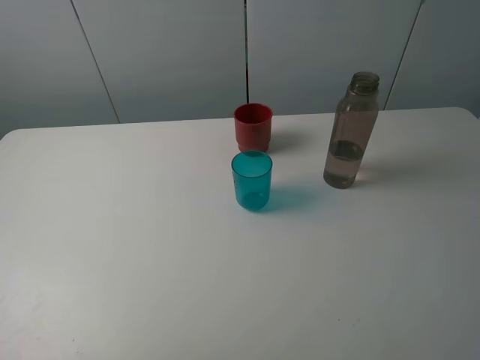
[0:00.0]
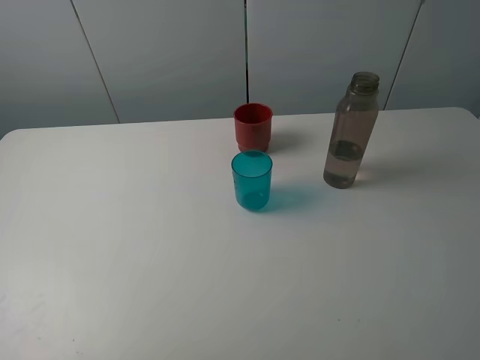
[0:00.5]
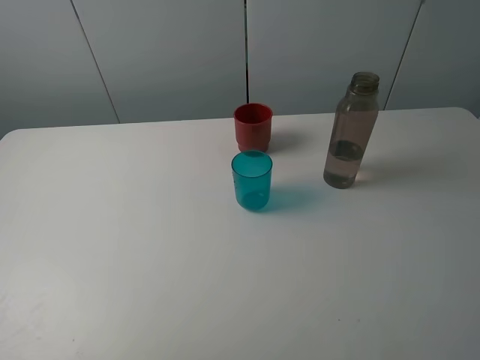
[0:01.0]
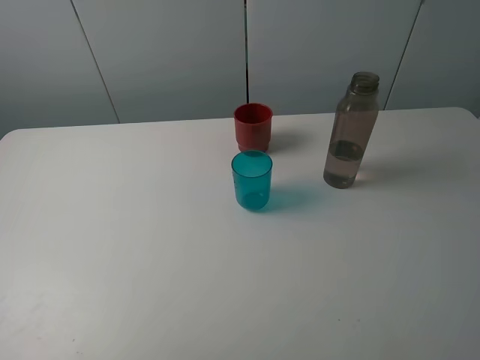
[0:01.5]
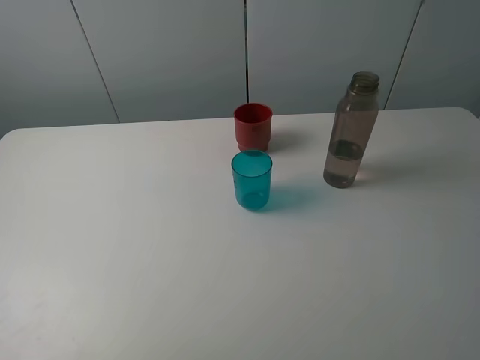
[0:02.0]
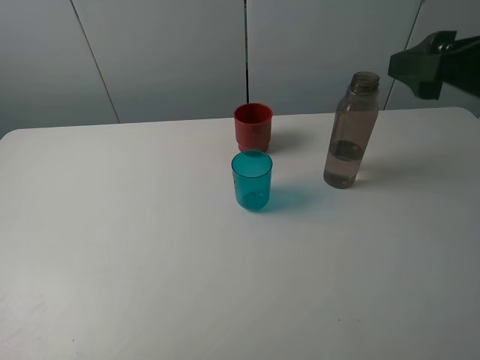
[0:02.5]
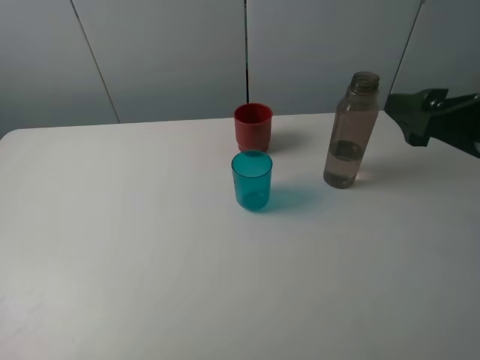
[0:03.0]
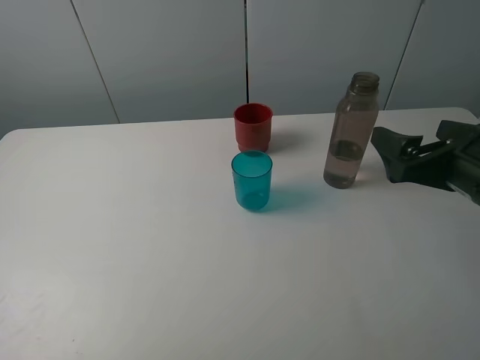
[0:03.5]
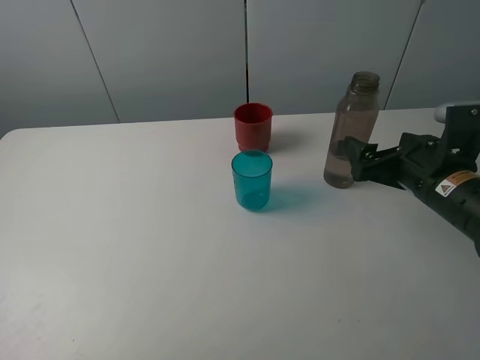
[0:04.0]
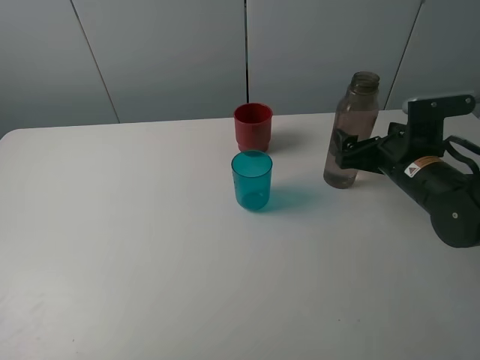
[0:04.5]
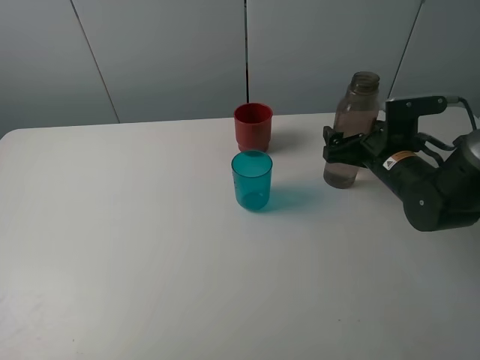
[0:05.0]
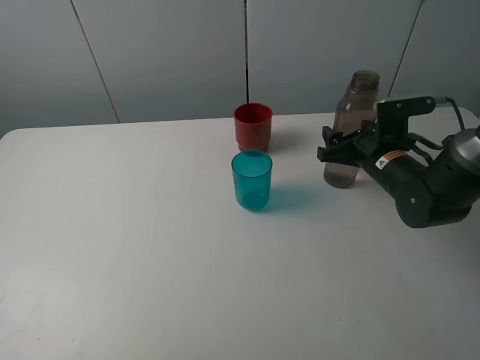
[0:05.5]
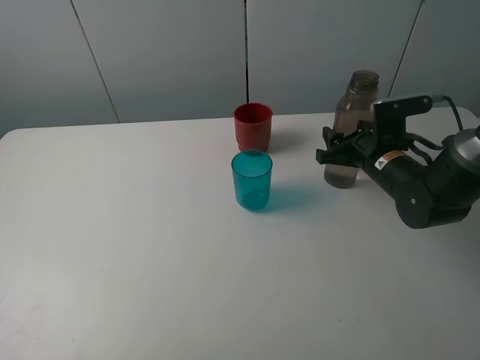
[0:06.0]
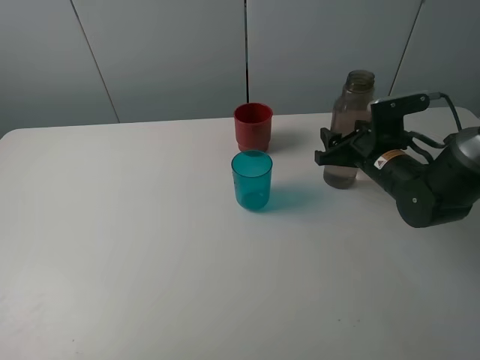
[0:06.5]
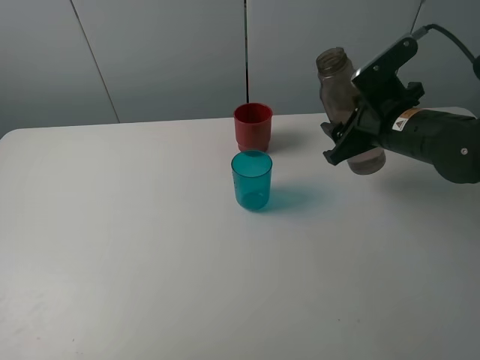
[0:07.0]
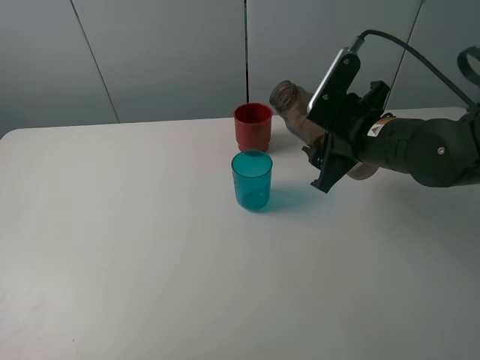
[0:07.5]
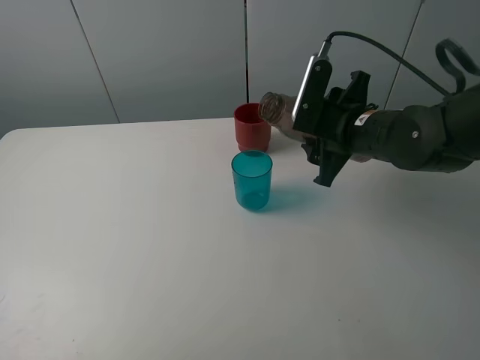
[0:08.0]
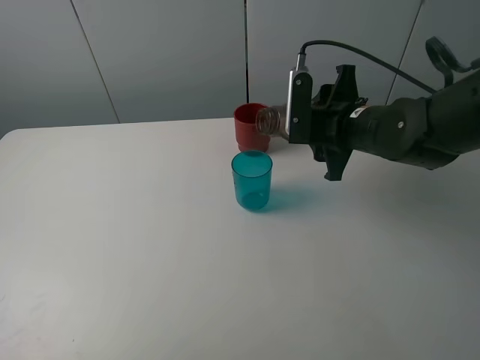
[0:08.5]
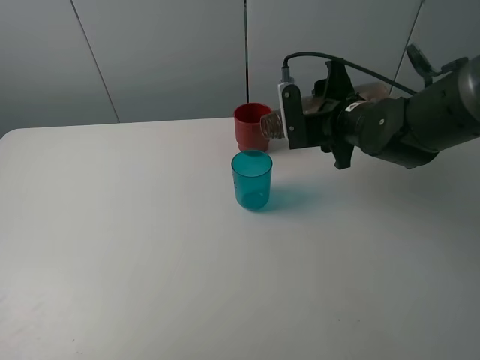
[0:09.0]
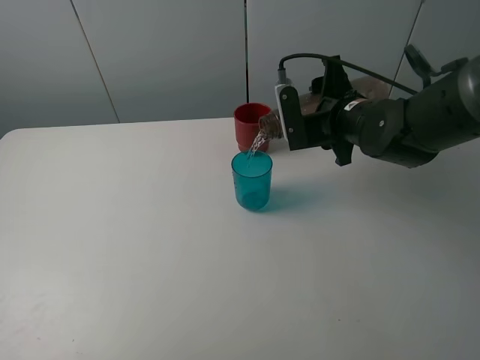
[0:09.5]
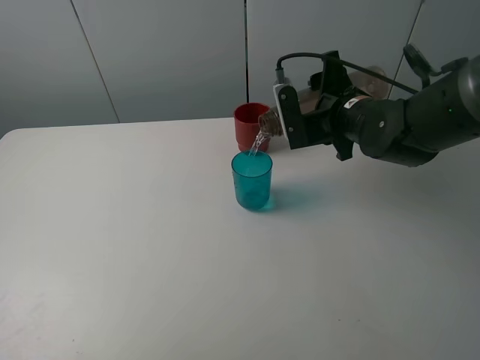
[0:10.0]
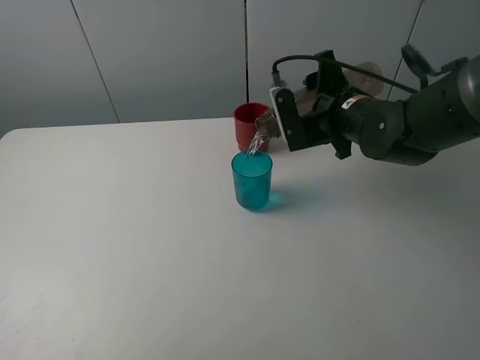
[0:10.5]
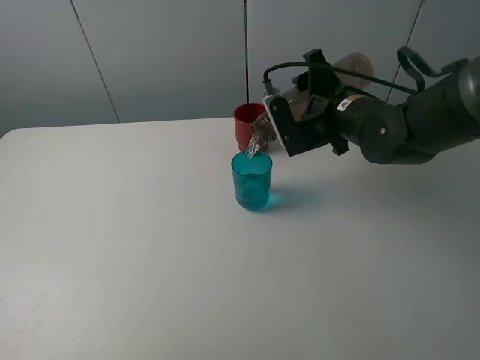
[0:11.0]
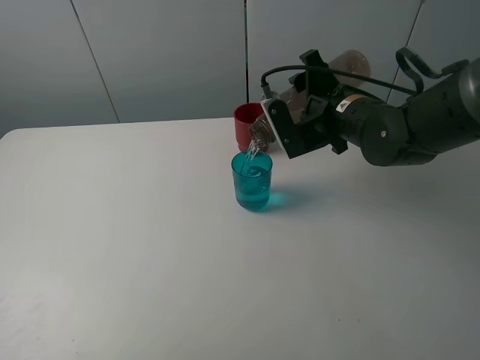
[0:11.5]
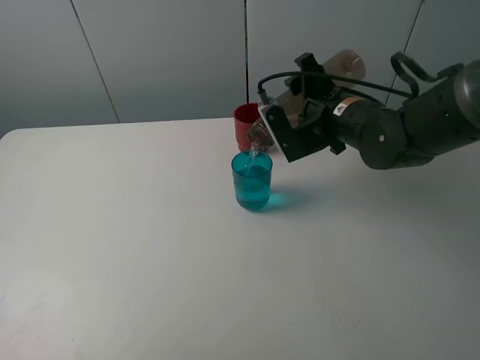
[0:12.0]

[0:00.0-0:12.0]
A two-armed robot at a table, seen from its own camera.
Task of the whole recording: pick up the bottle and pour water into the cup, then pick up the cup containing water and pour it into another cup.
Step, 0:00.0 to 0:05.5: Grasp the brown bottle with the right gripper.
0:02.0 to 0:04.0: The right gripper is displaced downward and forward by some 25 cm.
0:04.0 to 0:06.0: The right gripper heads forward, covering approximately 10 cm, and closes.
0:06.0 to 0:08.0: The right gripper shifts roughly 10 cm upward and to the left.
0:10.0 to 0:12.0: The grippers move only a little.

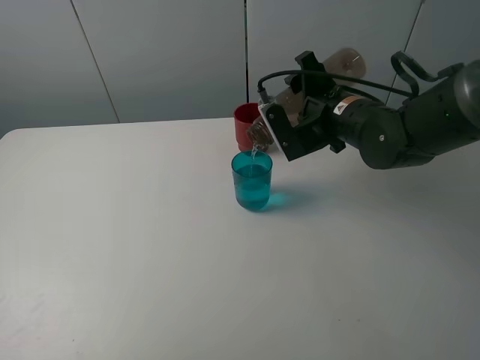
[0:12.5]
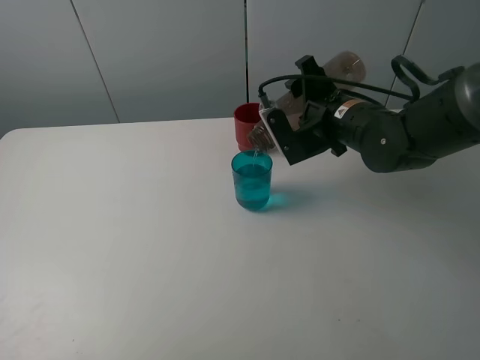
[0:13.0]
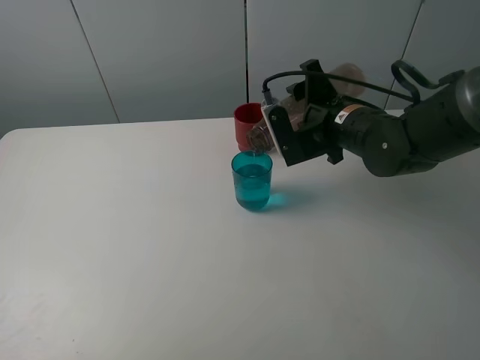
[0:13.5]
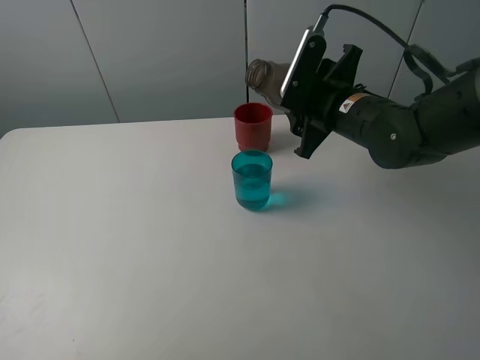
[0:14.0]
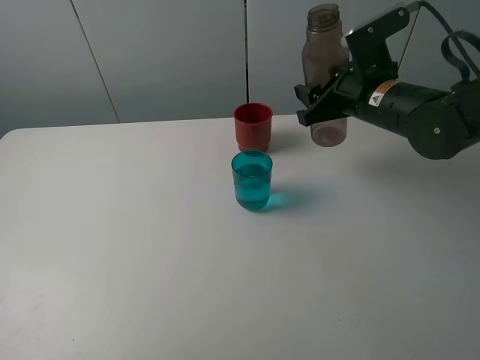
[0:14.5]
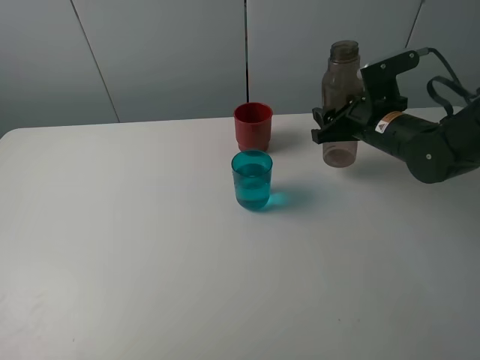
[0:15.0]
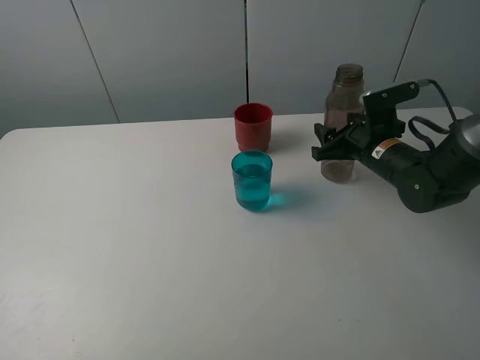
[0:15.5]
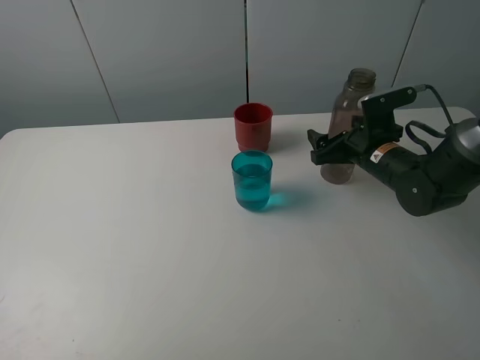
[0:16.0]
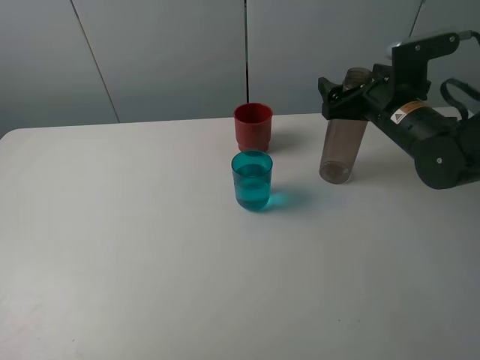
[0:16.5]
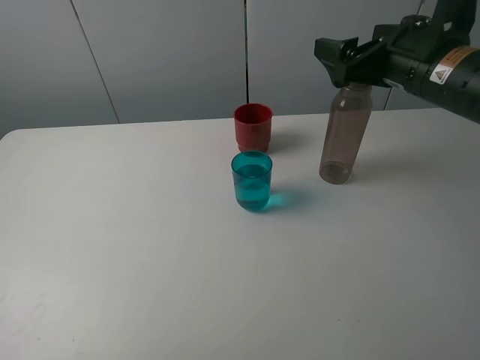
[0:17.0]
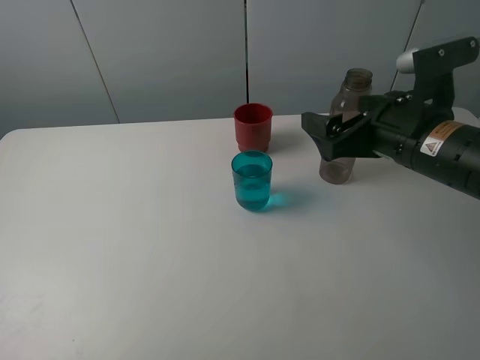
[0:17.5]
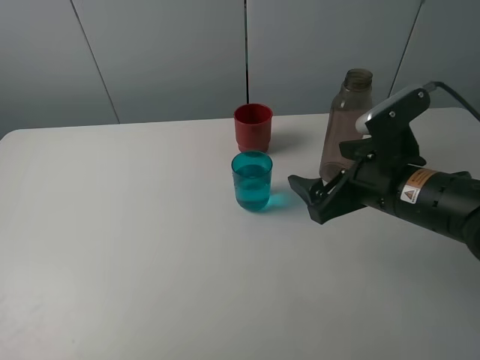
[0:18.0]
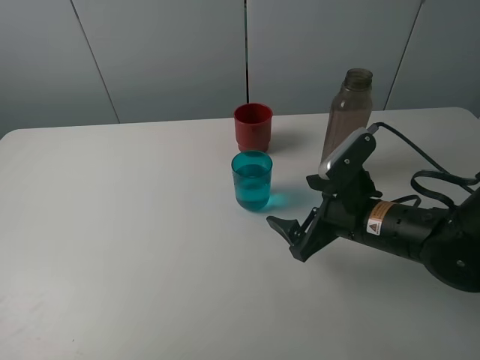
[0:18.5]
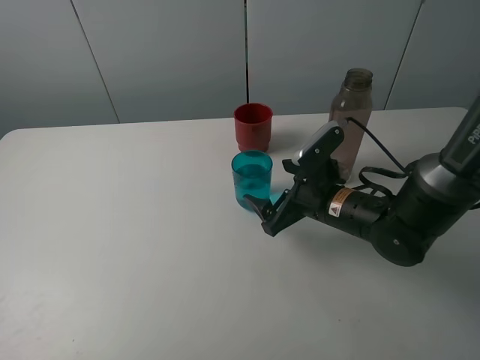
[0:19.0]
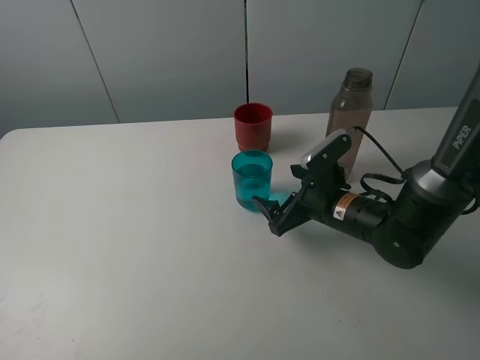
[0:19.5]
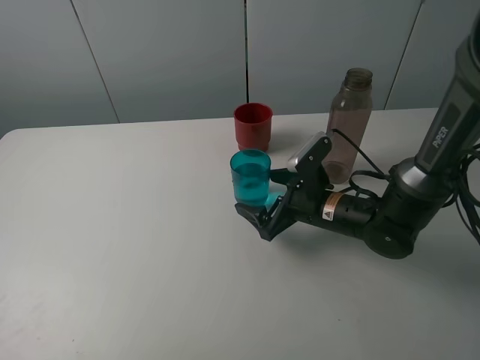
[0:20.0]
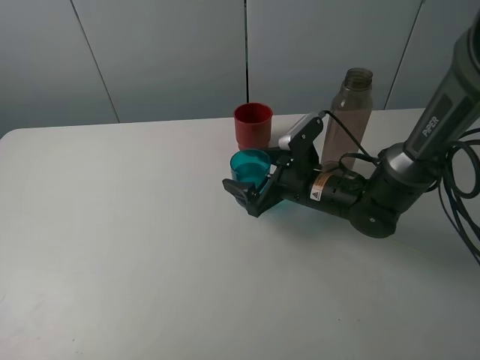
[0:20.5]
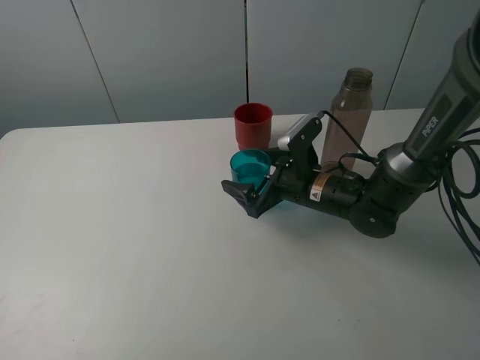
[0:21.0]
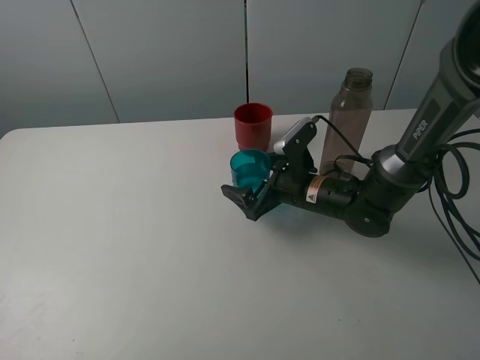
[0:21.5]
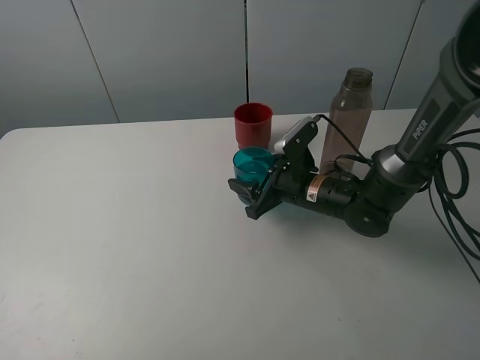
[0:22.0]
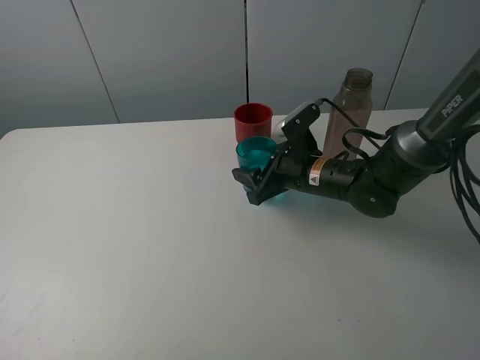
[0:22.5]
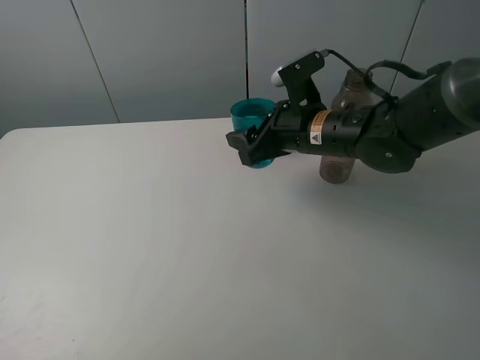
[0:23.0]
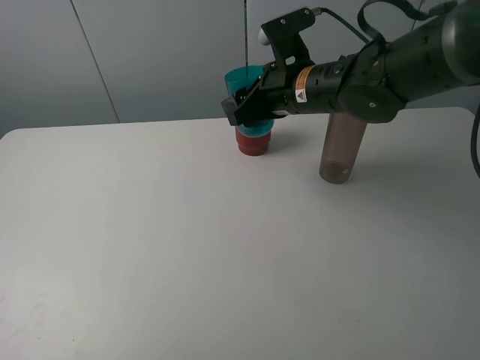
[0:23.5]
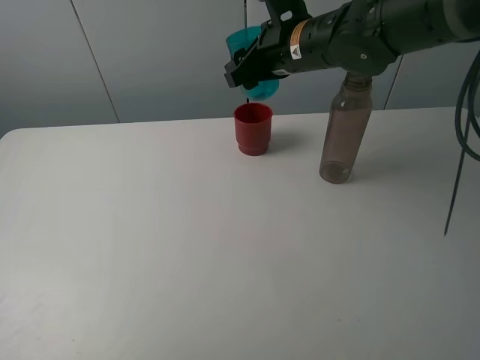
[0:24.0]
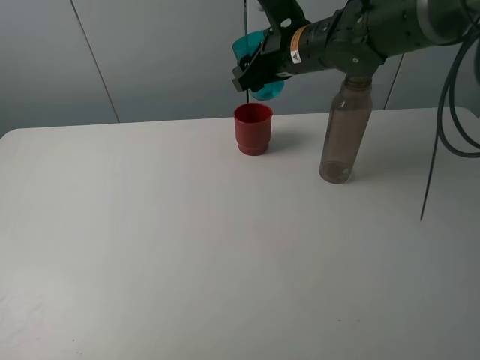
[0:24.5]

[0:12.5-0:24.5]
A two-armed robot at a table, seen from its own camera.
Task of the whole recording: pick up the bottle and pour water into the cup, then pick up the cup containing water and pour it into another cup.
Step, 0:14.0 to 0:16.0: Place the brown bottle with the right gripper.
Step, 0:16.5 to 0:22.0: Grasp the blue cup with the right gripper.
0:14.5 to 0:16.5: The right gripper reaches about 10 cm downward, then returns, and opens its fingers.
0:16.5 to 0:18.5: The right gripper shifts about 15 cm backward, downward and to the left.
0:18.5 to 0:20.5: The right gripper goes approximately 10 cm forward.
0:20.5 to 0:22.5: The right gripper closes its fingers.
0:22.5 to 0:24.5: The right gripper heads upward and forward, covering about 15 cm.

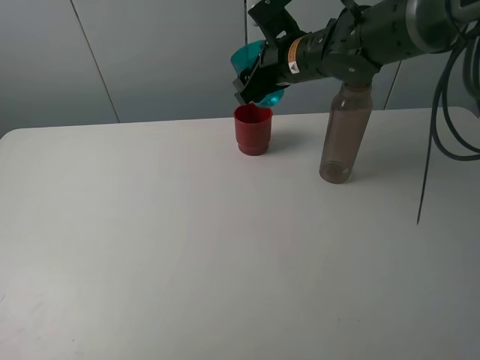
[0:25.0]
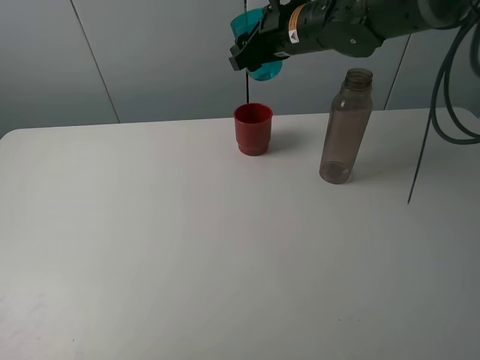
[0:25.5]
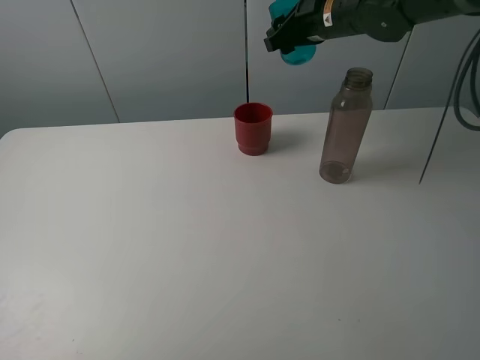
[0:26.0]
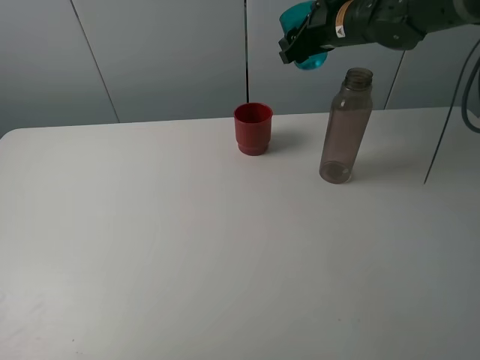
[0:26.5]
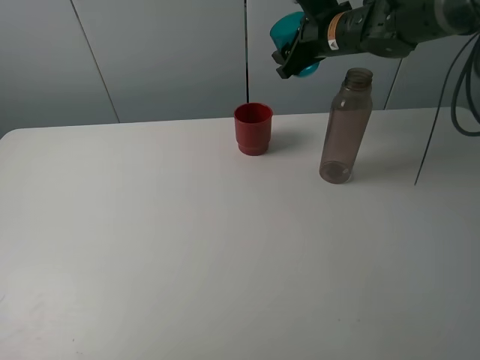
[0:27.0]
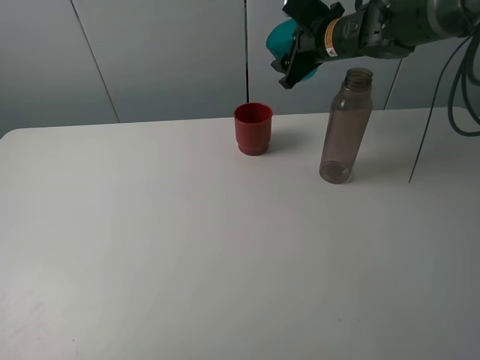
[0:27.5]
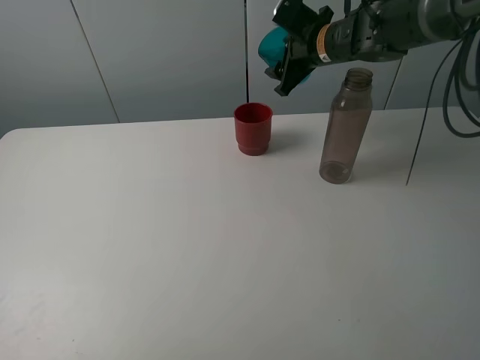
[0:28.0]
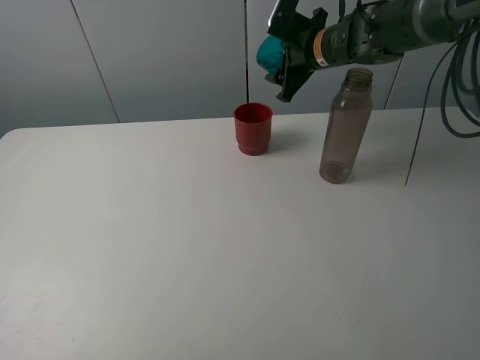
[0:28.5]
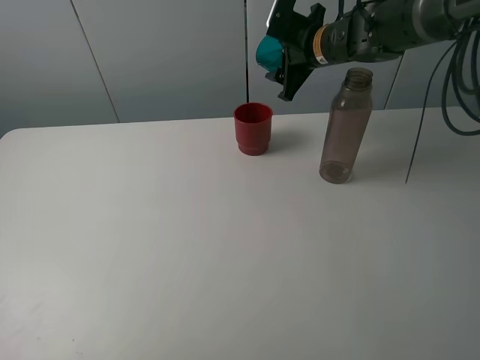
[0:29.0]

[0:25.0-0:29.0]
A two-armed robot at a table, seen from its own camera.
Task of the whole recording: pick up the bottle and pour water into the cup, then pick up the cup containing water and pour it into another cup.
0:25.0 to 0:27.0: The right gripper is displaced to the right and forward by some 10 cm.
